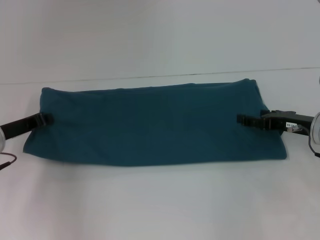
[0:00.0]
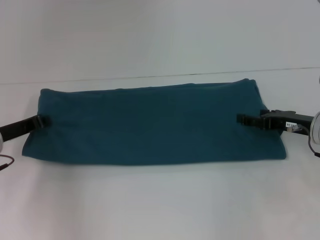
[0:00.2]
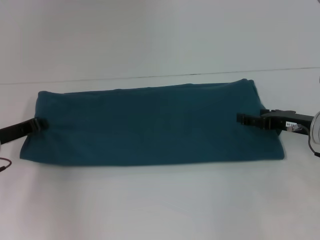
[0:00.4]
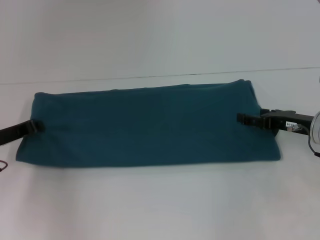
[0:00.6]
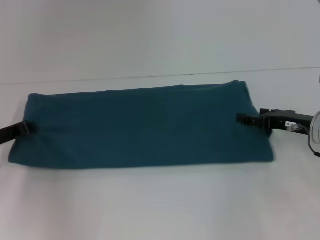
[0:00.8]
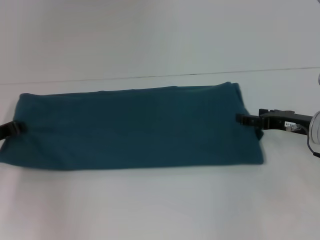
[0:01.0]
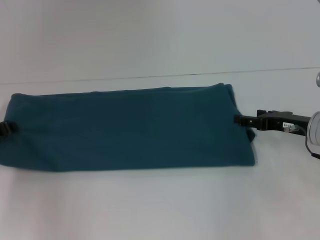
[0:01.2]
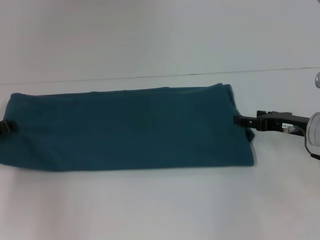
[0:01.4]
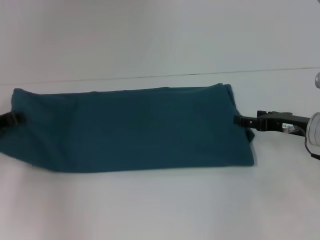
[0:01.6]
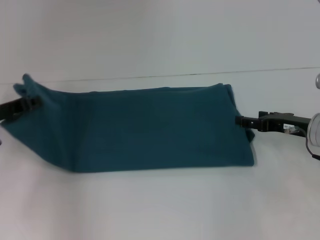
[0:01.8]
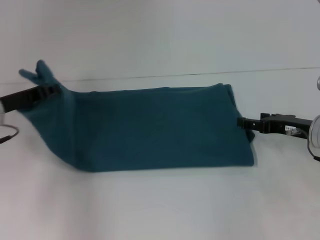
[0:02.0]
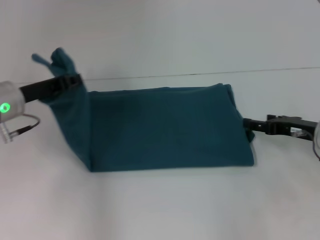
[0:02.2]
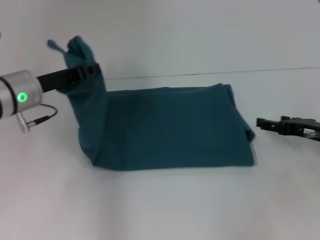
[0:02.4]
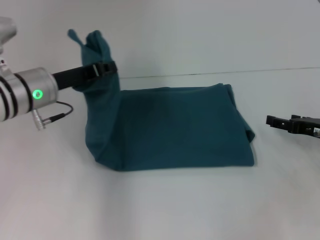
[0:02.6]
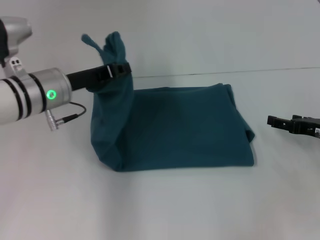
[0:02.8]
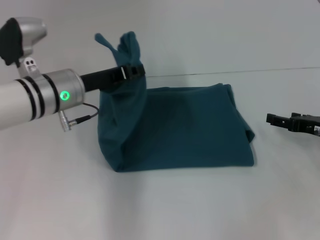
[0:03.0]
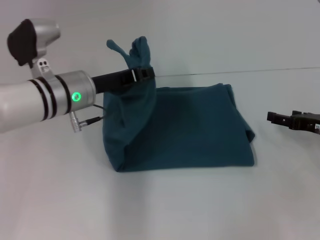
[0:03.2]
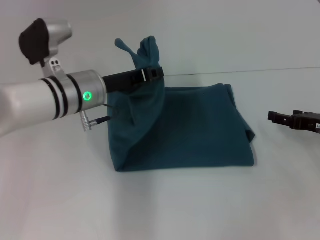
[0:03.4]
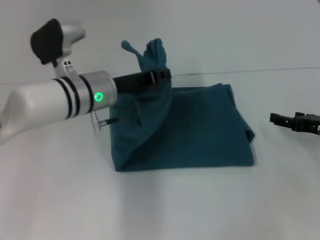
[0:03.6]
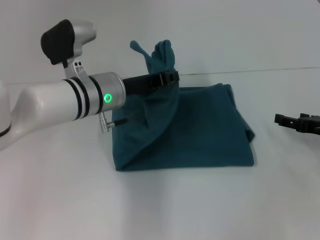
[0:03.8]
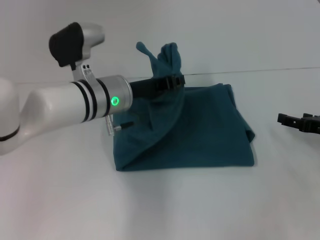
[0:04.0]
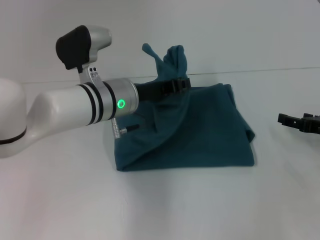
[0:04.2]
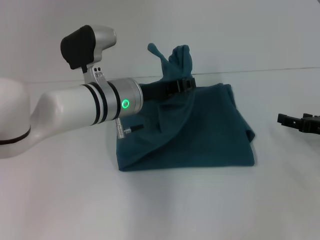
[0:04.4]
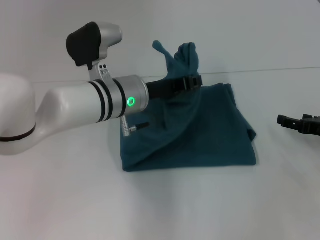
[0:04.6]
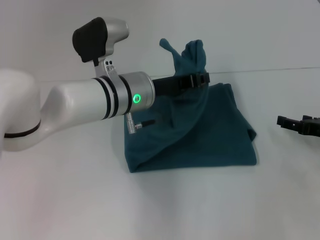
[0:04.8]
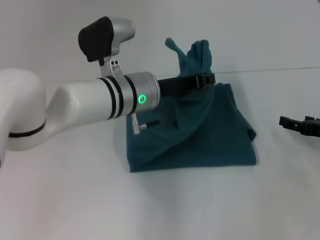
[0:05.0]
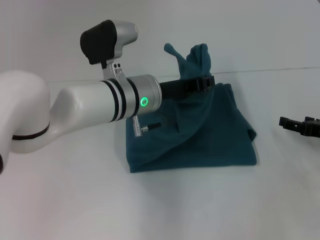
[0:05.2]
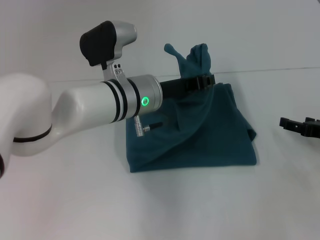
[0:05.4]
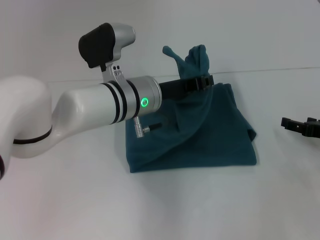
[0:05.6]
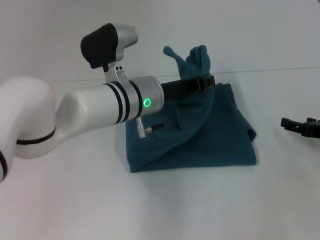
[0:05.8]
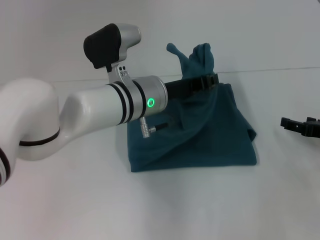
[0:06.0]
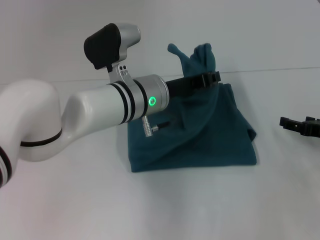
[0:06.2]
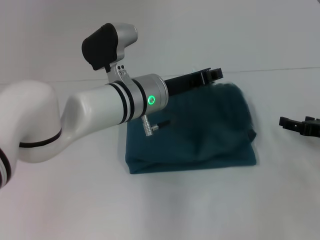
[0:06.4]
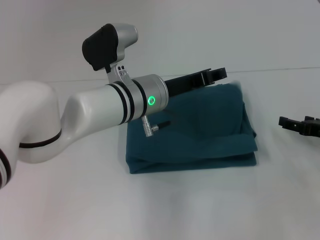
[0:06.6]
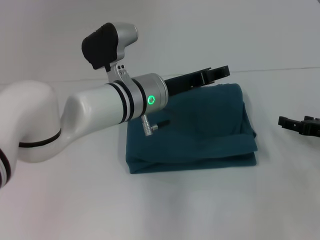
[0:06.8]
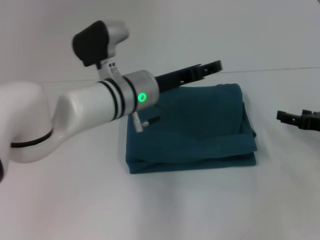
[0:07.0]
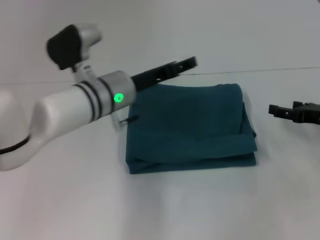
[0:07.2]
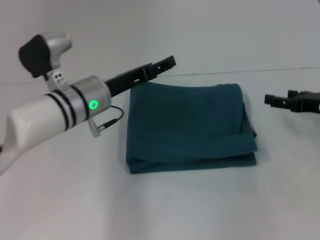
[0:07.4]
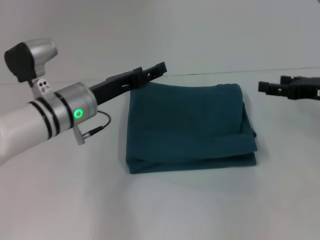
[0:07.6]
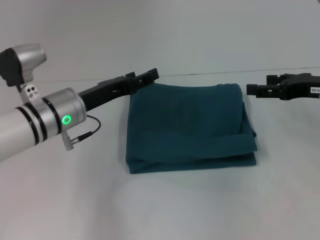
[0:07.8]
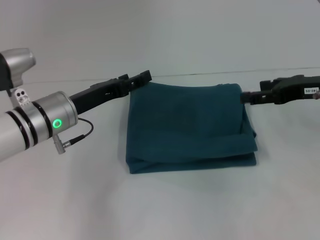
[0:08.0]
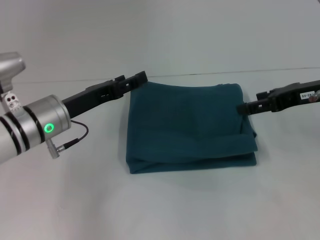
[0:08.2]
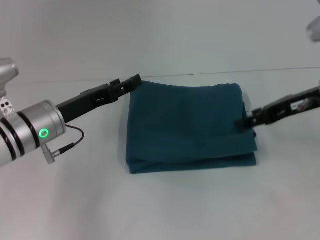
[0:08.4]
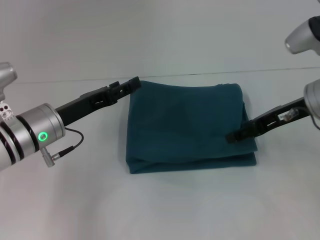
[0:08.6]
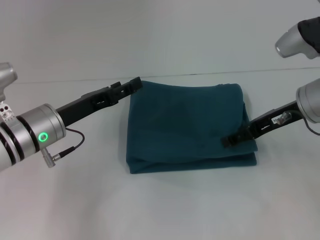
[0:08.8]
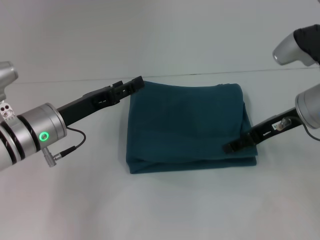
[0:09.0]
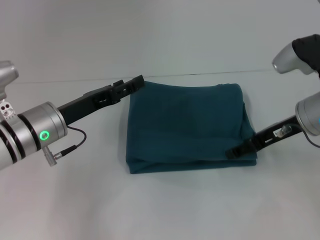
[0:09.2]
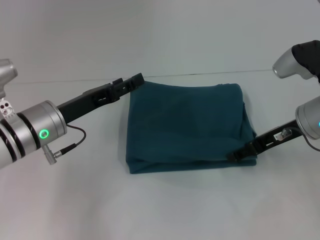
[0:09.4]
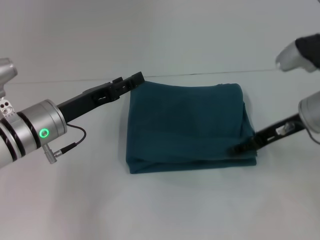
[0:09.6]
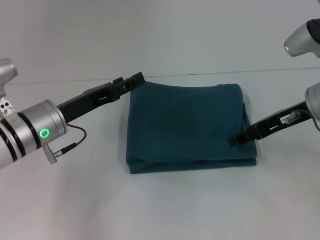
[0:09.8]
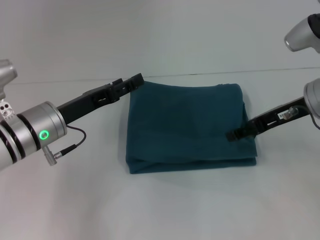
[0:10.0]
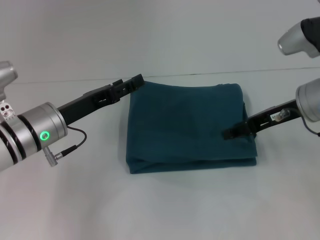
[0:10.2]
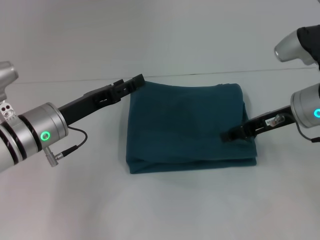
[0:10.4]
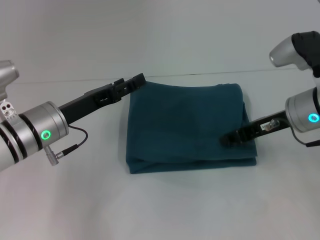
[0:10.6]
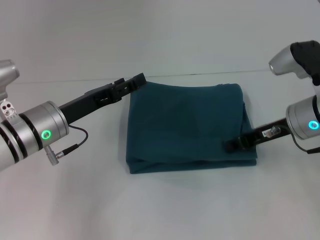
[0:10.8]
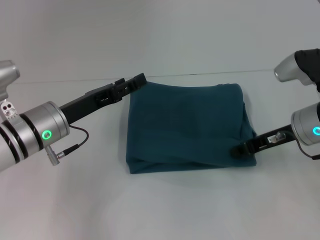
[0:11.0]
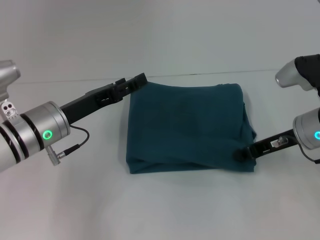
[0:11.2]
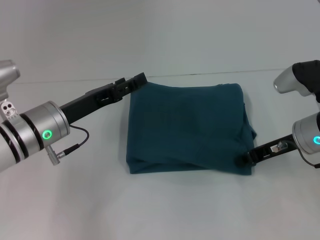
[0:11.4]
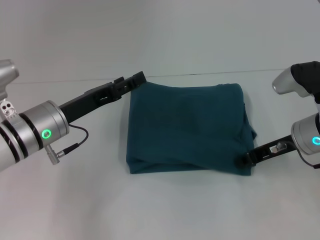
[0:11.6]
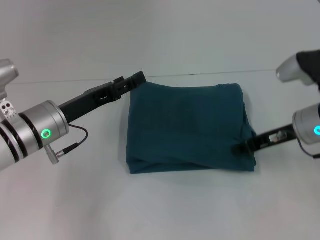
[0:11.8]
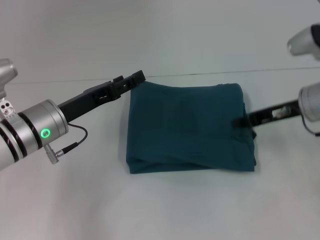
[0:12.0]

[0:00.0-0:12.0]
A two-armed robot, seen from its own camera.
Step, 0:00.0 to 0:06.8: Fold the clothes to the left.
0:00.0 to 0:01.6: The grippers make only small movements.
0:01.6 to 0:03.0: The left gripper heads to the right, covering approximately 15 cm.
0:03.0 to 0:04.4: The left gripper is displaced to the right by some 10 cm.
0:04.4 to 0:06.0: The grippers stay close to where they were, moving slightly.
0:06.0 to 0:07.6: The right gripper heads upward, covering approximately 10 cm. Meanwhile the left gripper heads to the left, covering approximately 10 cm, and opens.
0:07.6 to 0:09.0: The right gripper is displaced to the left by roughly 10 cm; the left gripper moves approximately 5 cm.
0:09.0 to 0:10.4: The grippers make only small movements.
0:10.4 to 0:12.0: The right gripper closes.

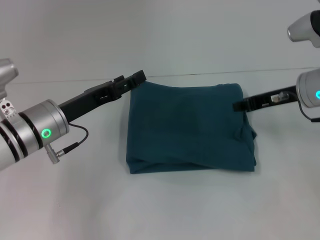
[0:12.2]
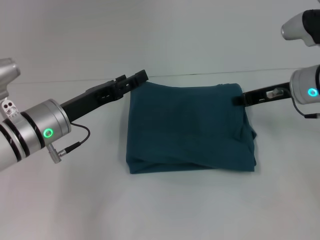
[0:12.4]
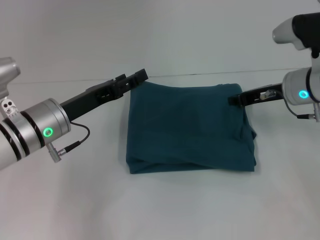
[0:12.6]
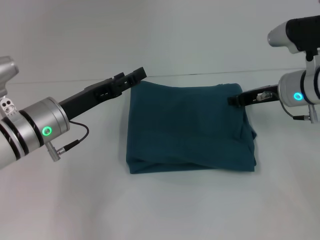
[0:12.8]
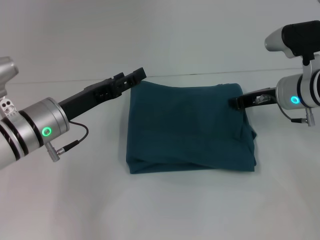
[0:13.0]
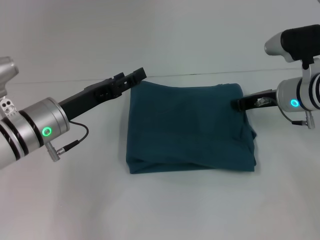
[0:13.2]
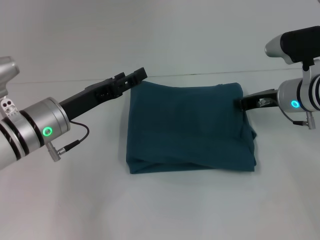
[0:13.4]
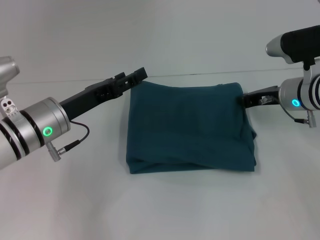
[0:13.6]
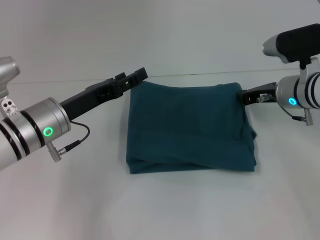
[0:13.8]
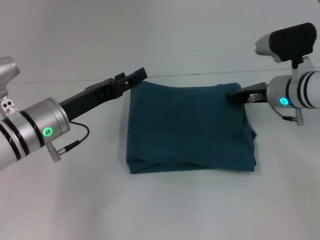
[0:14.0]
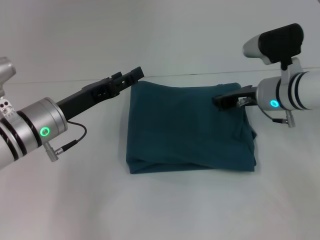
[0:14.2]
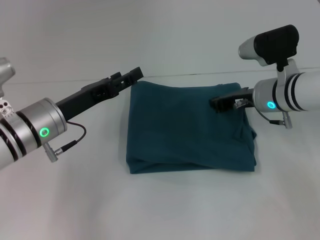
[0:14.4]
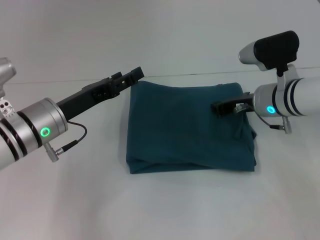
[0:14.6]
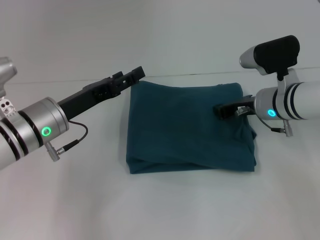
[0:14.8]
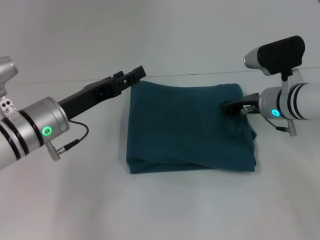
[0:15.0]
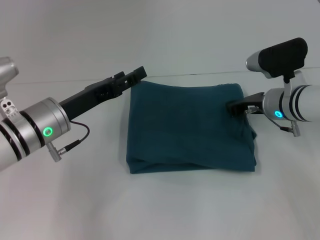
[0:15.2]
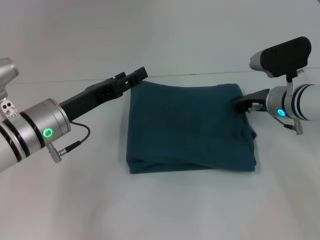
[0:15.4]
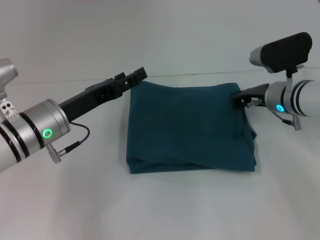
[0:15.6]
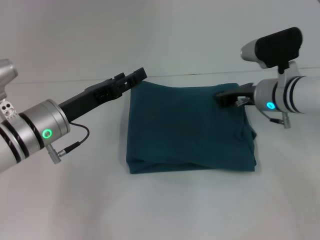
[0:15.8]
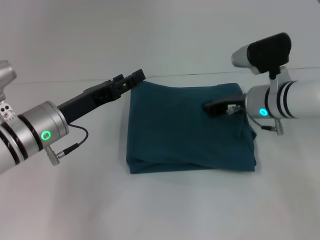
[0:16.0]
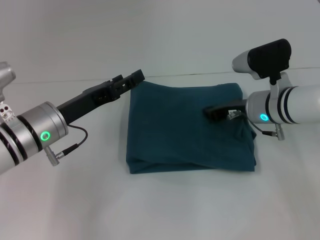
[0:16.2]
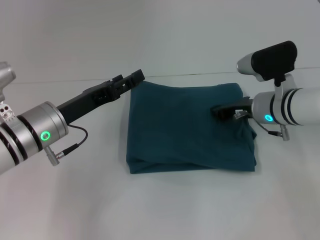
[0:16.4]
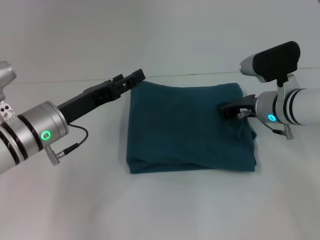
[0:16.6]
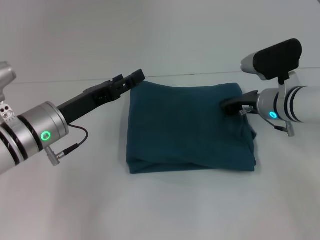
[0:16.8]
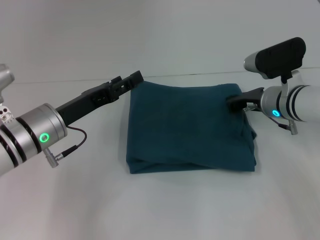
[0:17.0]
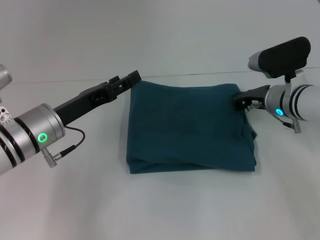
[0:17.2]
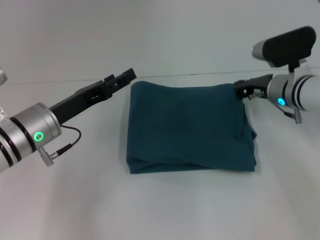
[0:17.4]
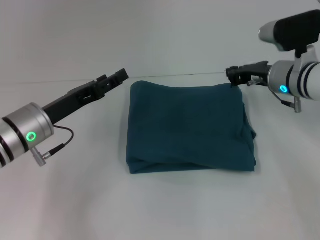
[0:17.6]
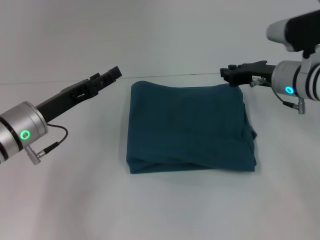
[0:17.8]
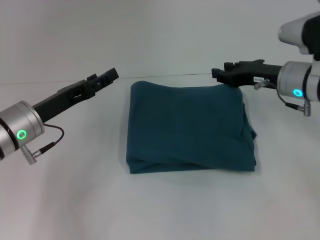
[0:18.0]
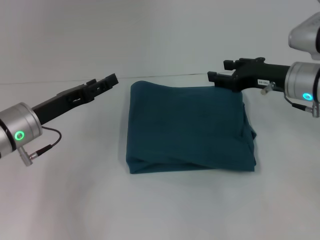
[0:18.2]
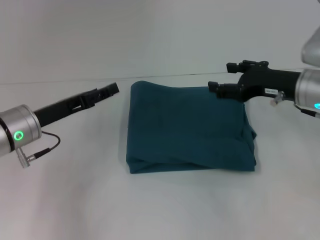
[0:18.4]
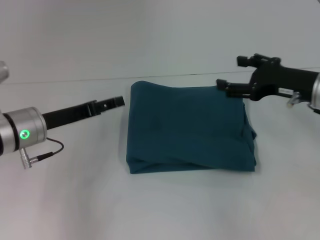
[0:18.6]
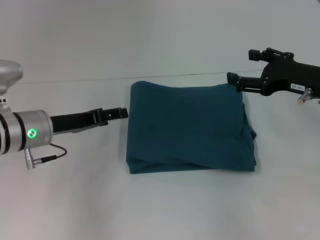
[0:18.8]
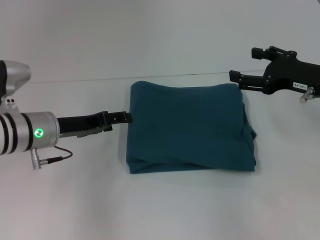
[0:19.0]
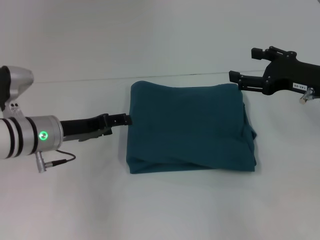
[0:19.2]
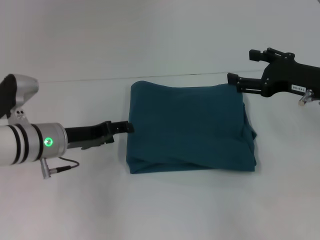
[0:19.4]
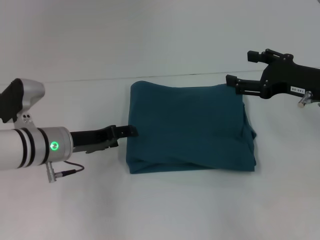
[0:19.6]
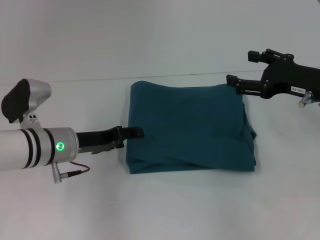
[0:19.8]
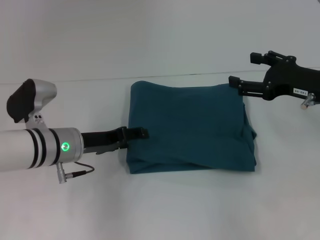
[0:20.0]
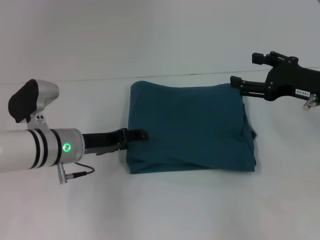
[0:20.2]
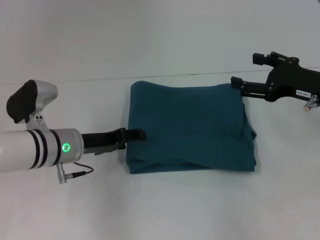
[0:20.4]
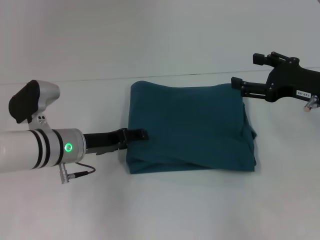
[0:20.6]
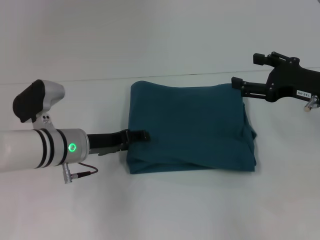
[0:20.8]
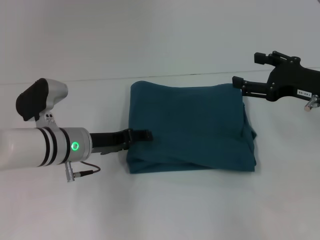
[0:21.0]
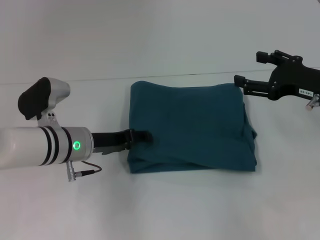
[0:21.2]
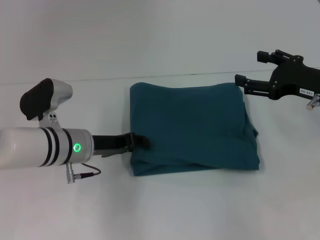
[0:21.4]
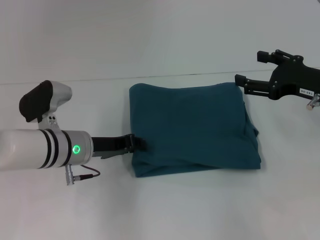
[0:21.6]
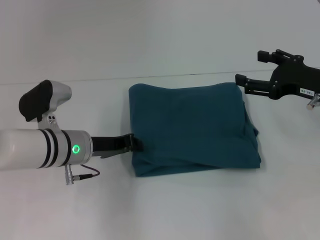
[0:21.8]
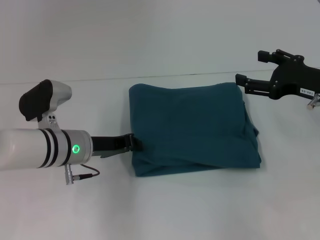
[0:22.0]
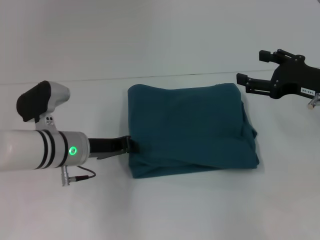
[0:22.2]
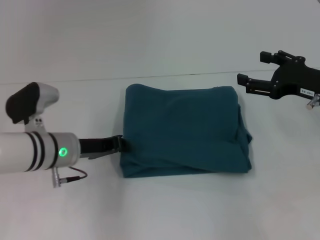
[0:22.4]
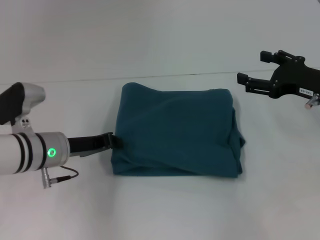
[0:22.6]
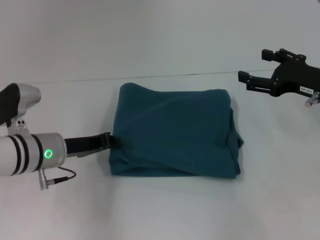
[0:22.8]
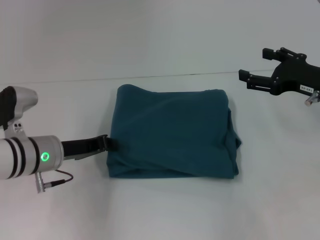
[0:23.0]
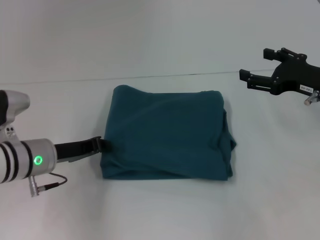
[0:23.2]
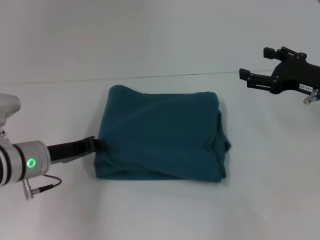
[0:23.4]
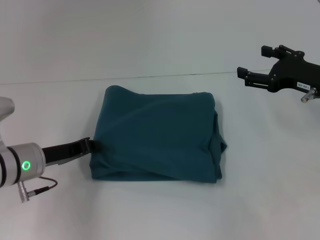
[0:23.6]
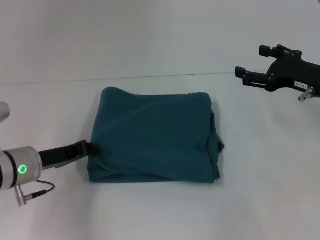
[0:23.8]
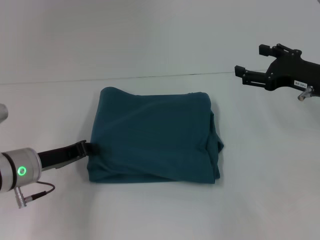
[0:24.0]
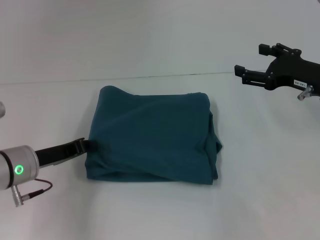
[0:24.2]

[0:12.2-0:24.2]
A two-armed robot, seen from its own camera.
0:12.2 to 0:13.8: The right gripper changes place by some 5 cm.
0:13.8 to 0:16.6: The grippers make only small movements.
0:16.6 to 0:18.2: The right gripper moves upward, some 5 cm, and opens its fingers.
0:18.2 to 0:19.8: The left gripper ends up roughly 5 cm from where it was; the right gripper moves some 5 cm, and opens up.
0:19.8 to 0:21.2: The grippers make only small movements.
0:21.2 to 0:22.6: The left gripper closes.
0:22.6 to 0:24.2: The left gripper shifts by approximately 5 cm.
